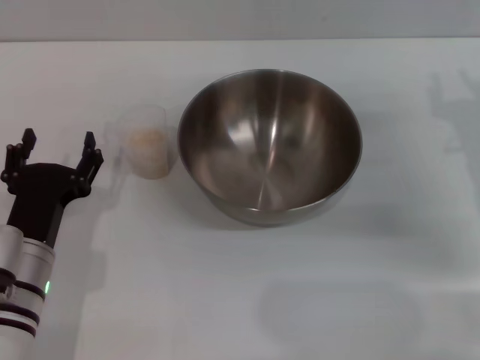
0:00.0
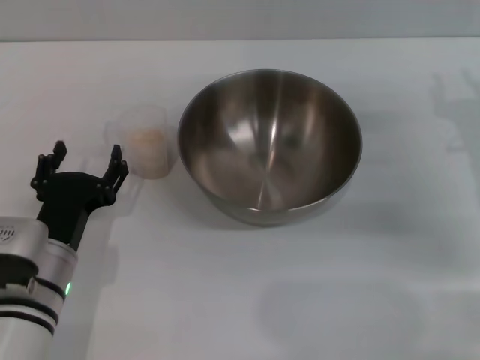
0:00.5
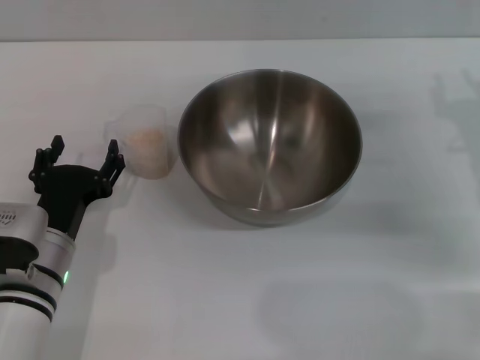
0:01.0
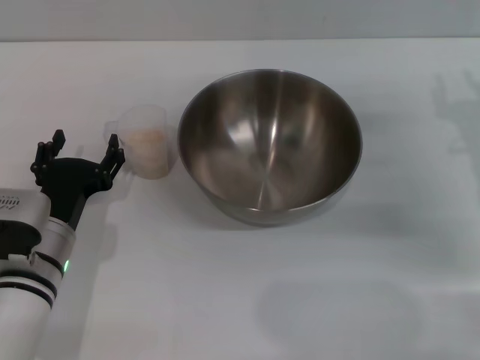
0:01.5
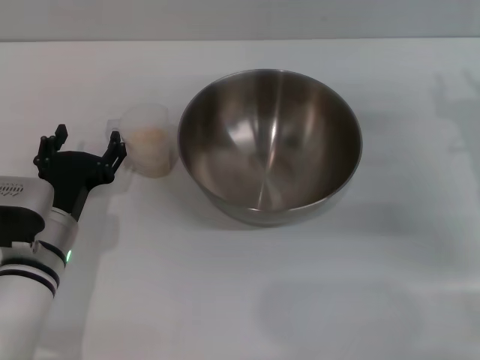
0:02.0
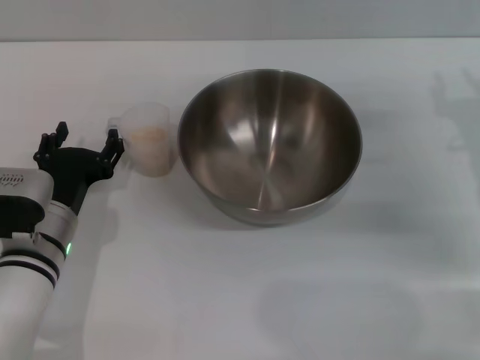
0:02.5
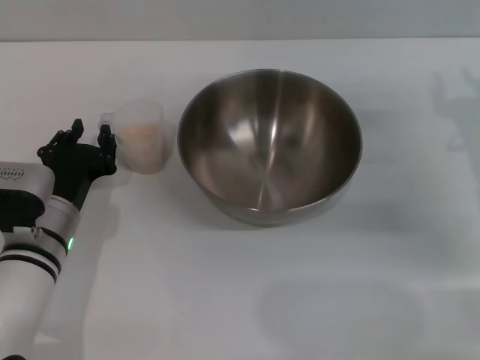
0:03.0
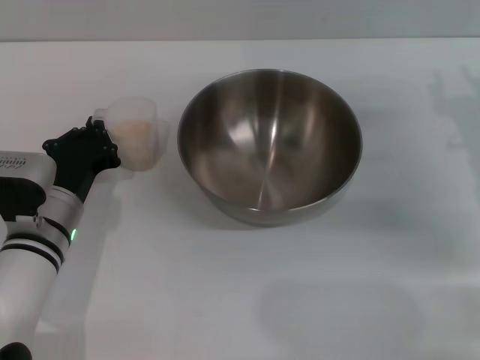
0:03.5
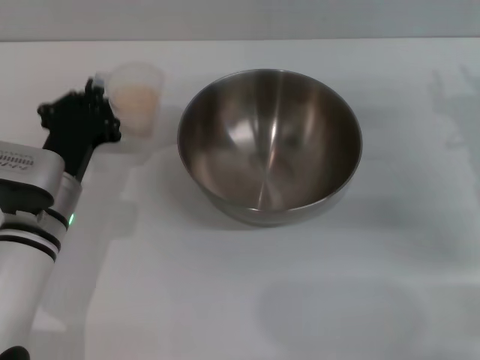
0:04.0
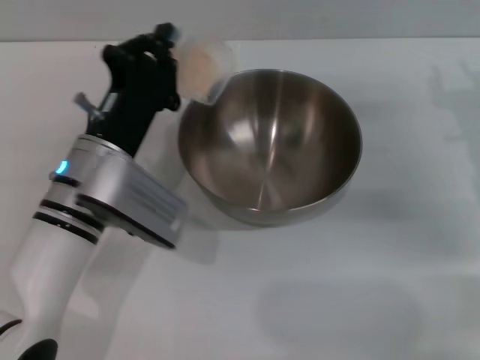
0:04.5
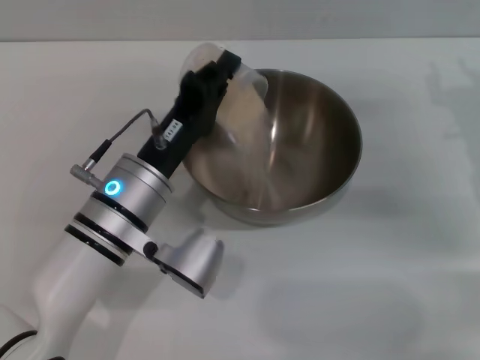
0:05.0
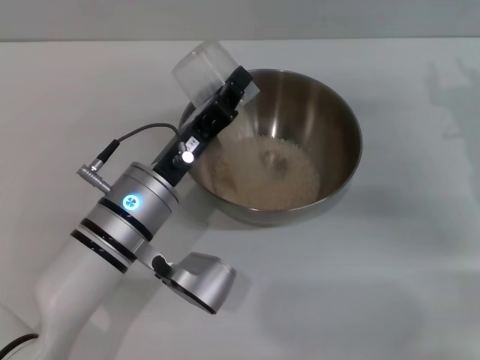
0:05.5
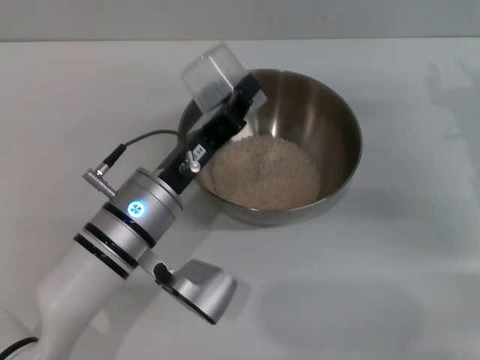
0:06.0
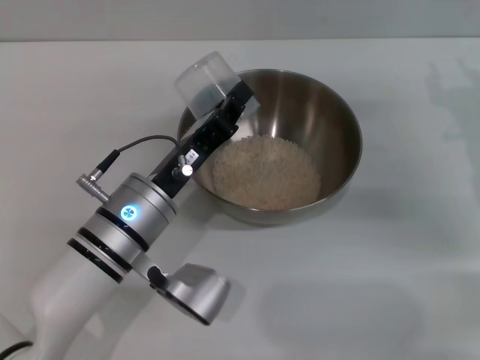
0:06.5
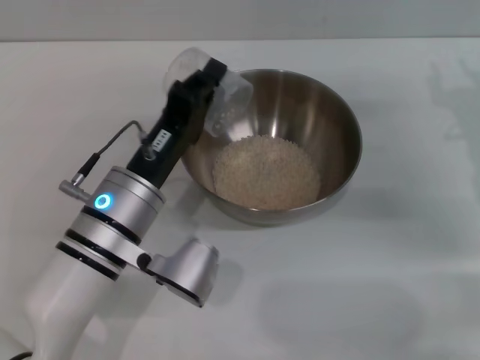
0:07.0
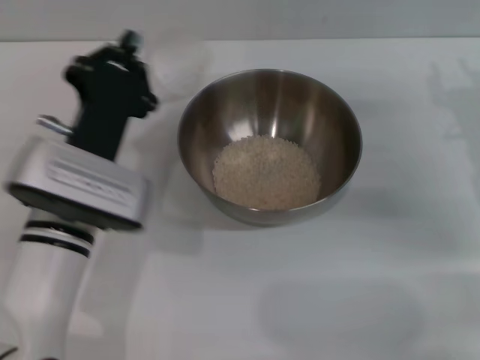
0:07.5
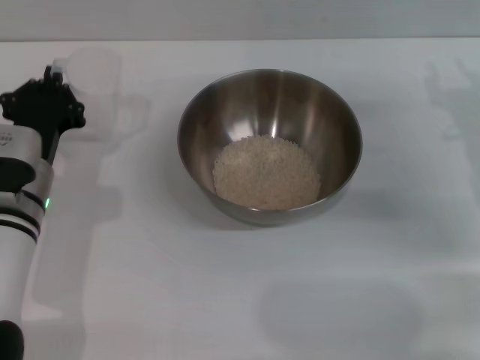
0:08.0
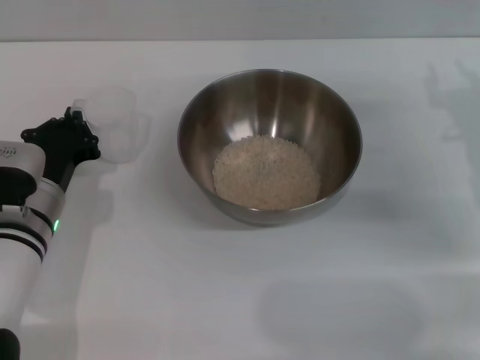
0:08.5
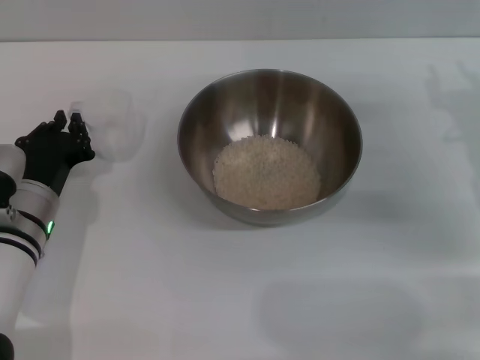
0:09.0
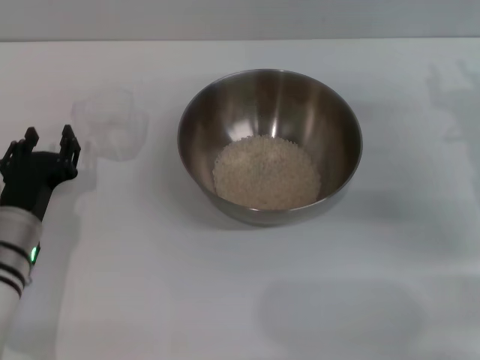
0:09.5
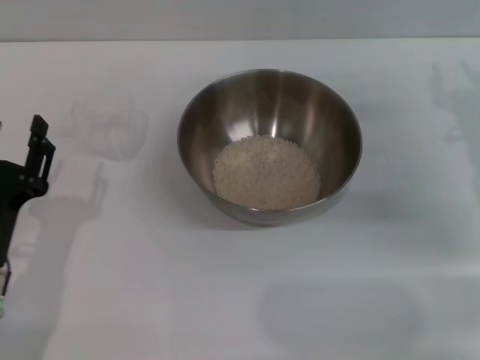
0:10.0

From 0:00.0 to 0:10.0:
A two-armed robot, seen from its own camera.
Task of the whole recording: Place the bowl in the middle of the table with one hand and pour the rice from the grain cup into it with the other hand.
Step, from 0:00.0 to 0:04.0: Pick up the cup with rice in it with the left gripper.
Step, from 0:04.5 to 0:05.5: Pour the rice from the cup into the bowl with the left gripper.
Step, from 0:06.0 to 0:08.5: Place the cup on the table with the left gripper.
From 0:00.0 to 0:02.0: There are only small adjustments of the grippers.
From 0:02.0 to 0:04.0: The left gripper closes up.
From 0:04.0 to 0:06.0: The left gripper travels to the right by some 10 cm.
From 0:06.0 to 0:08.0: The left gripper heads to the left, covering roughly 10 cm.
From 0:08.0 to 0:10.0: The left gripper shifts some 10 cm backward, and opens up.
